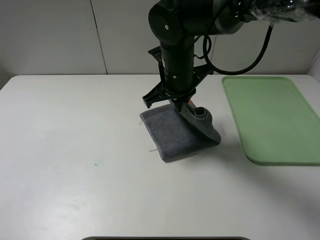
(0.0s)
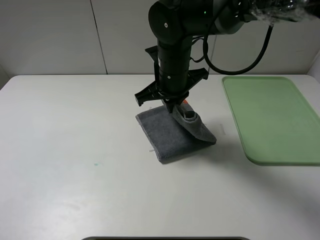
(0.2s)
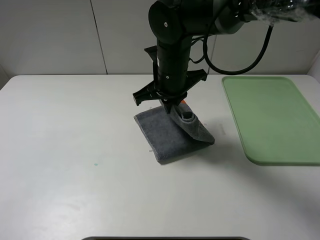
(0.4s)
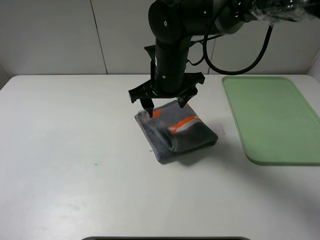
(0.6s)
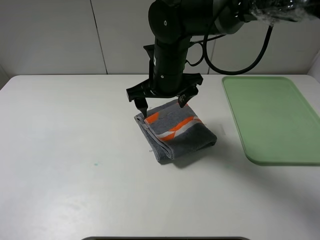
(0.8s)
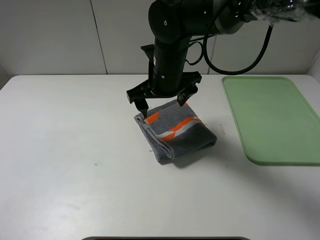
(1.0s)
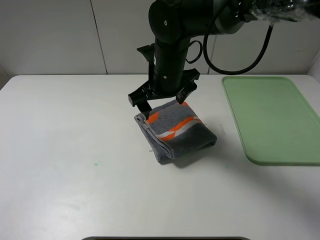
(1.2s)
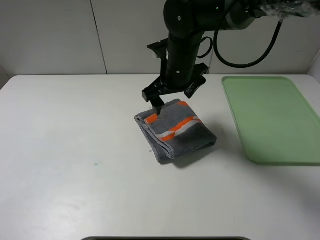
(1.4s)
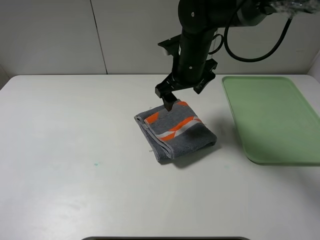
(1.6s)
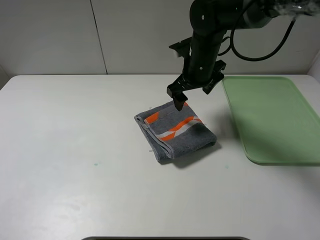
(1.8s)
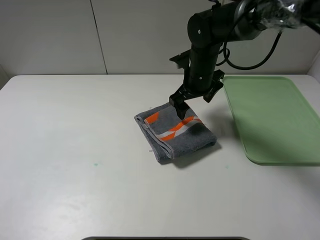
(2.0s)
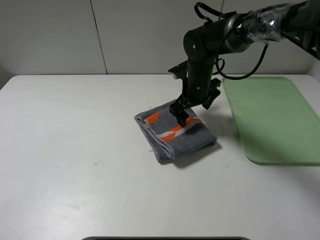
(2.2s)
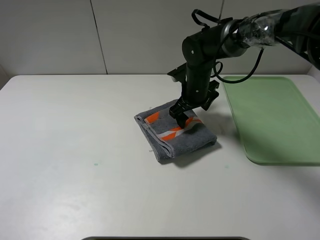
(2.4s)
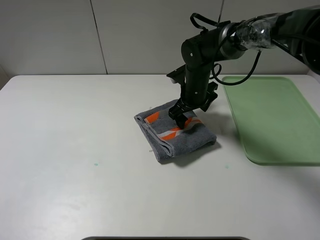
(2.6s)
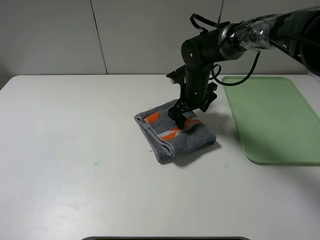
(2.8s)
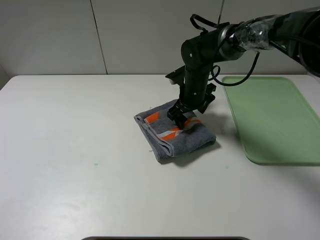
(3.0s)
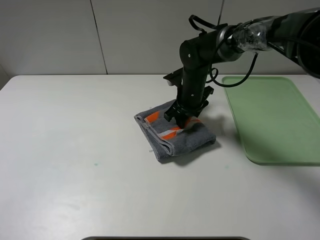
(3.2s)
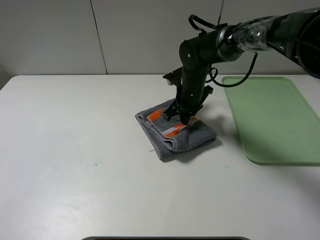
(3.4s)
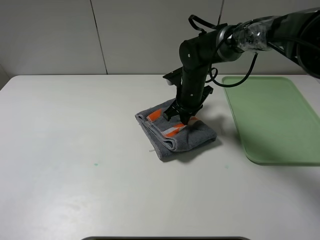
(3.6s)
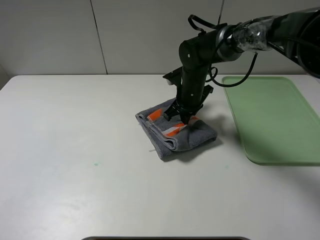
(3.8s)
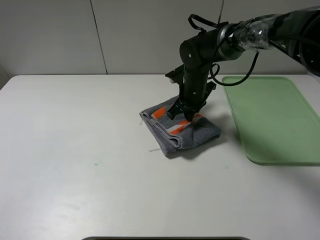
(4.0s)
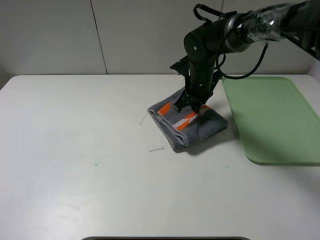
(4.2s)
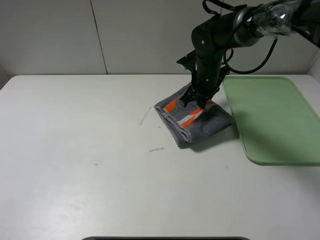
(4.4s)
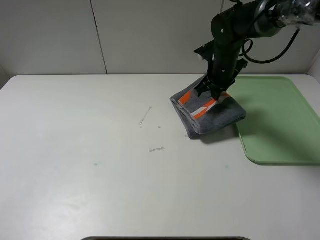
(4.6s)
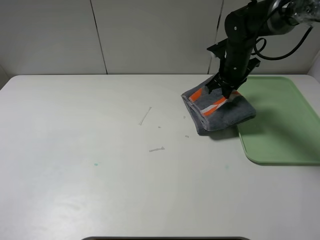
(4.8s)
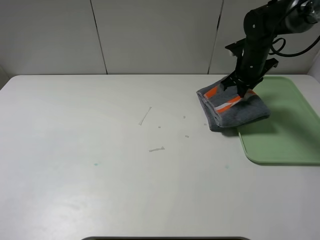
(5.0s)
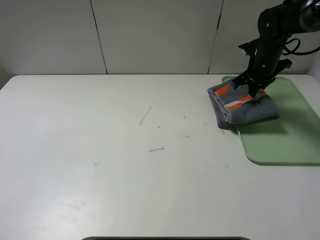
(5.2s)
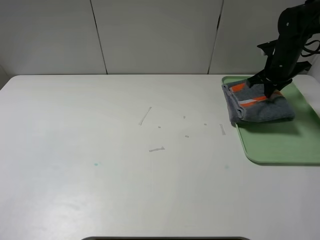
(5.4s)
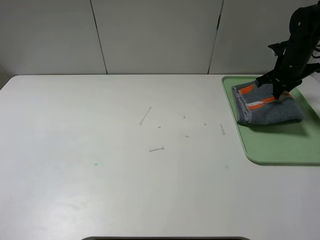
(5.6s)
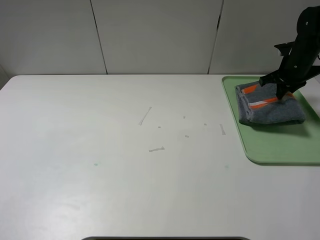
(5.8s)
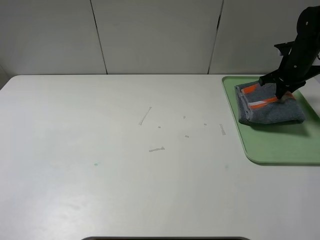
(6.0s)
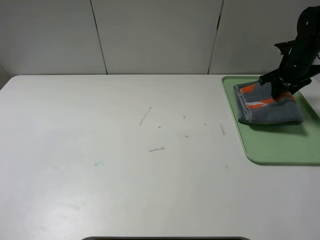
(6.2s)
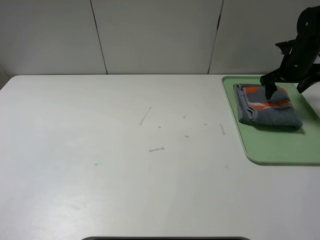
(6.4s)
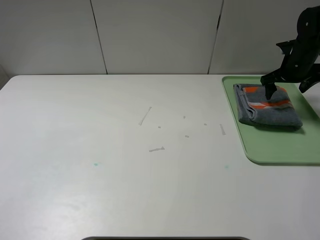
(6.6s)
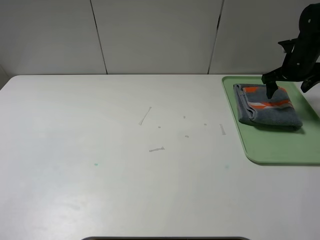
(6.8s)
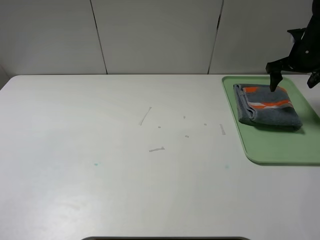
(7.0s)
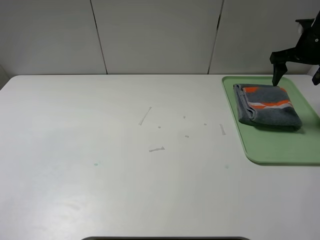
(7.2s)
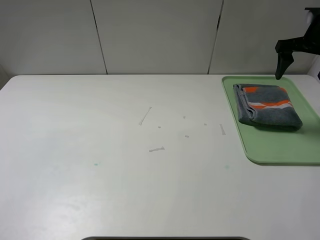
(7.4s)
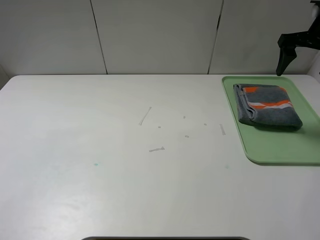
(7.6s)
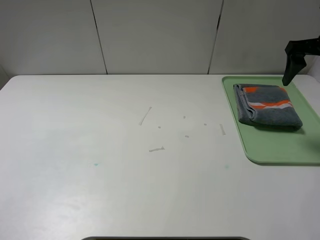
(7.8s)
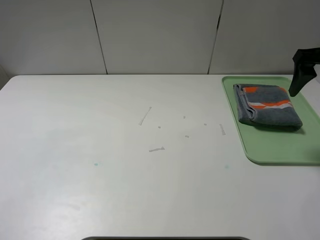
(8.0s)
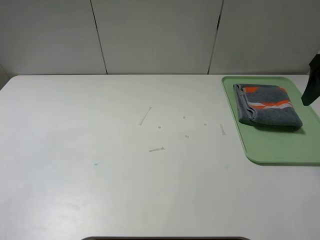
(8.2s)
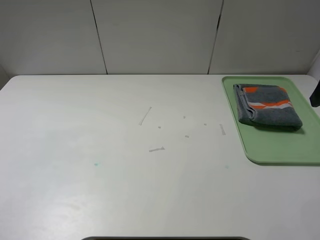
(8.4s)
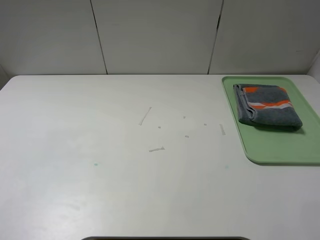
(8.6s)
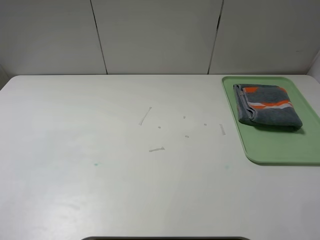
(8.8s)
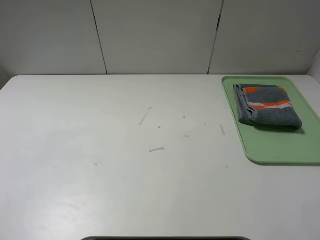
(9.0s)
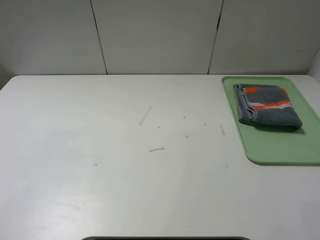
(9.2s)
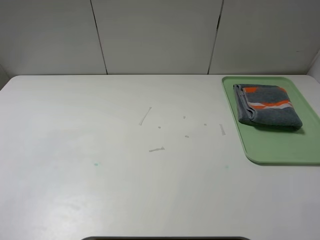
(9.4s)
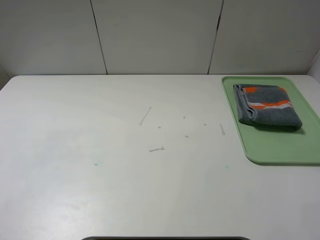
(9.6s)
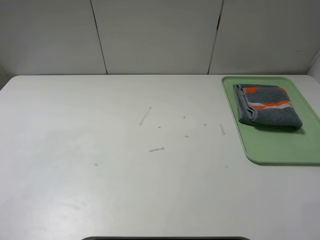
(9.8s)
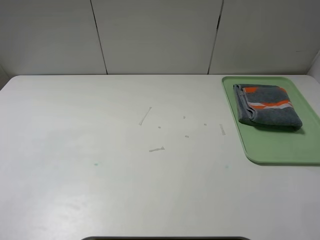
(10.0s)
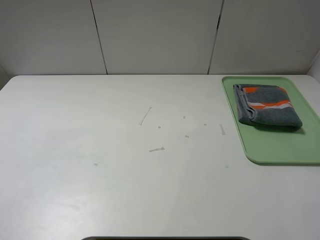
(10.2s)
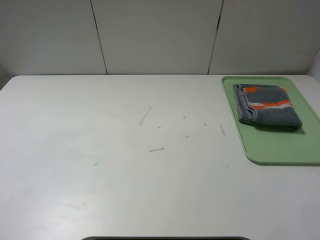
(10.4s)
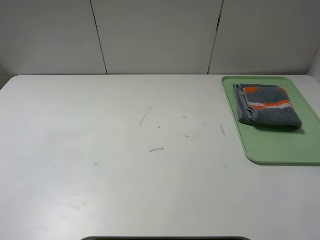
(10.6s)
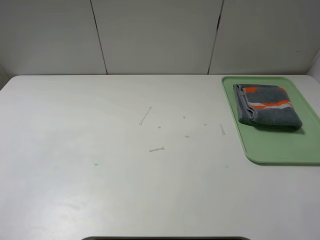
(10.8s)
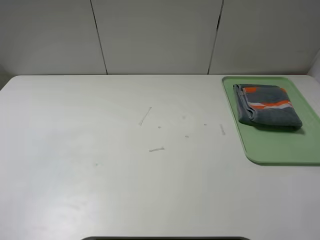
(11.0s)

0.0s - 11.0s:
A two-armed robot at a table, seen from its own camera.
Step, 0.8s - 6.2s: Place the folded grey towel on the tray with the right gripper.
0.0s - 1.6s: The right gripper changes place by some 5 cm, and opens its fingers.
1.6s - 3.2s: The right gripper shifts roughly 10 cm downward, and closes.
3.2s - 4.8s: The right gripper shifts approximately 10 cm to the right and upward, and closes its fingers.
4.8s - 6.2s: The right gripper shifts approximately 15 cm to the right, and opens its fingers.
6.2s - 7.8s: The right gripper heads upward and backward, covering about 15 cm.
7.8s - 9.4s: The right gripper goes some 35 cm backward.
